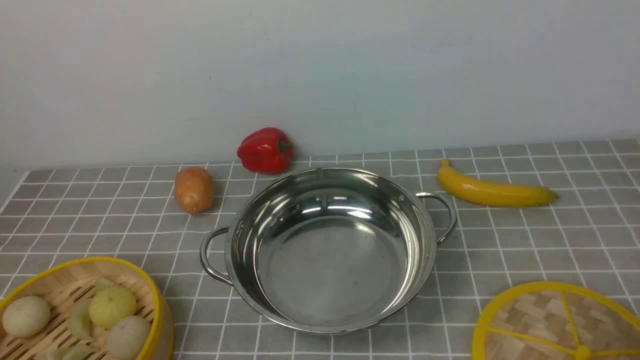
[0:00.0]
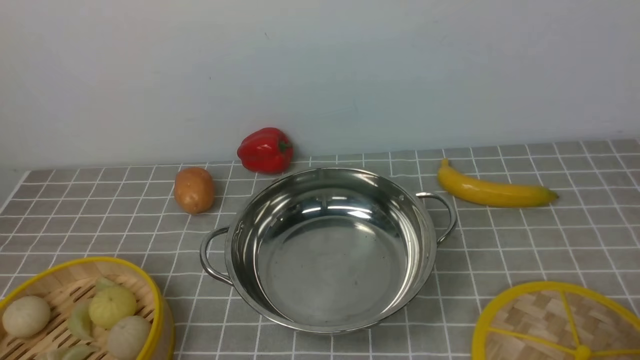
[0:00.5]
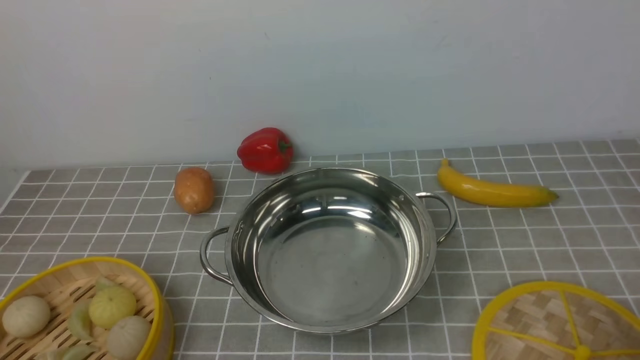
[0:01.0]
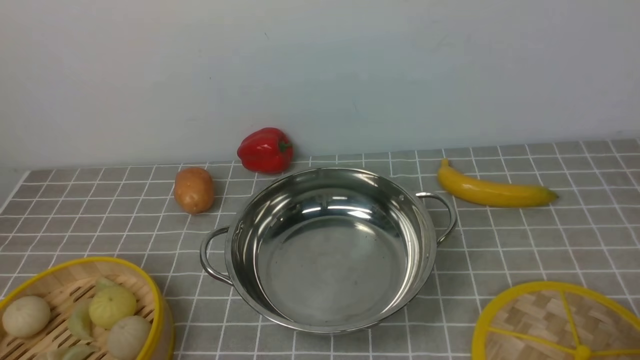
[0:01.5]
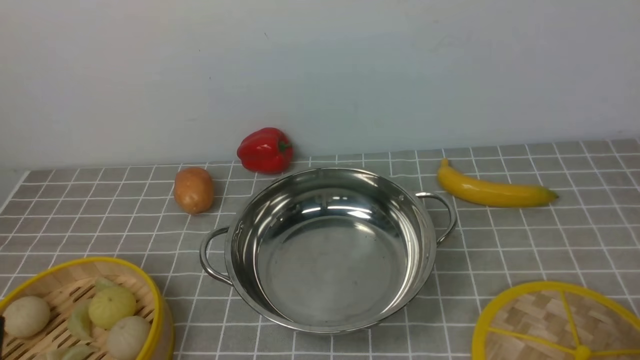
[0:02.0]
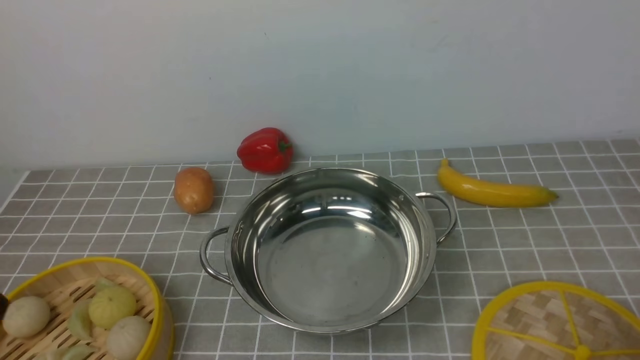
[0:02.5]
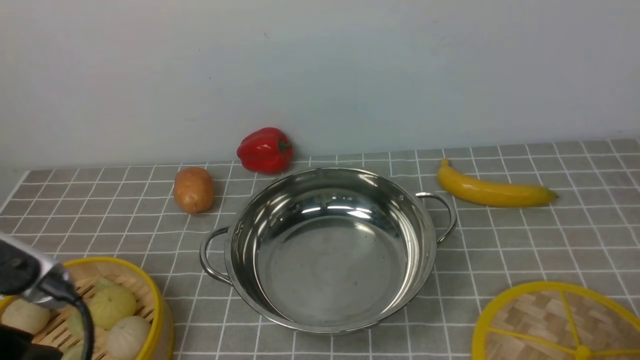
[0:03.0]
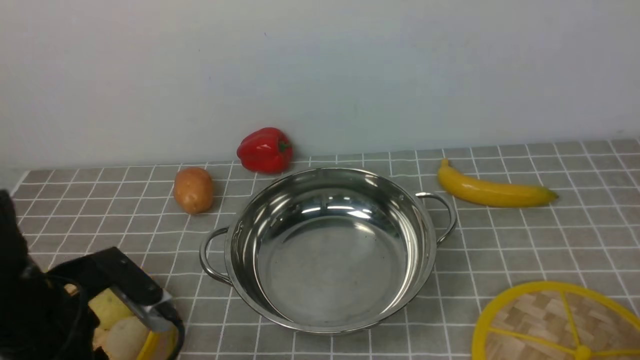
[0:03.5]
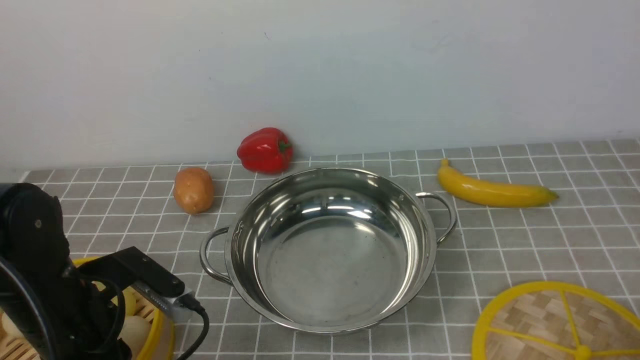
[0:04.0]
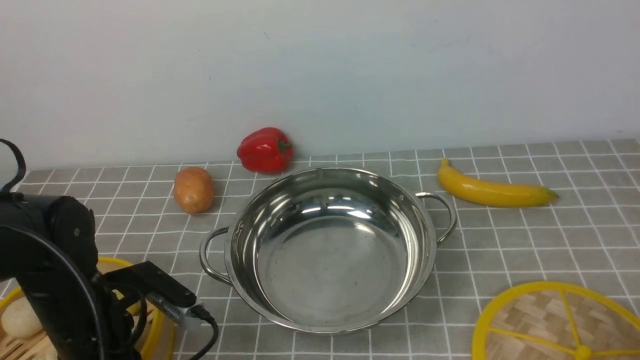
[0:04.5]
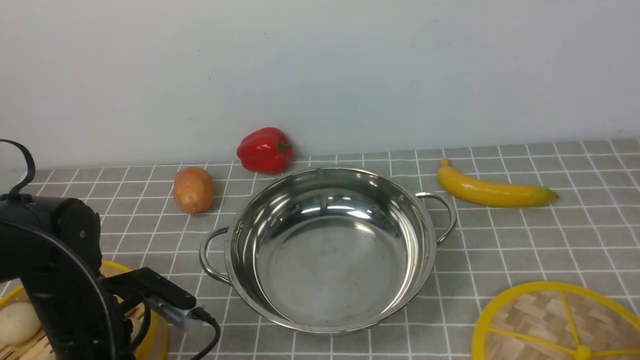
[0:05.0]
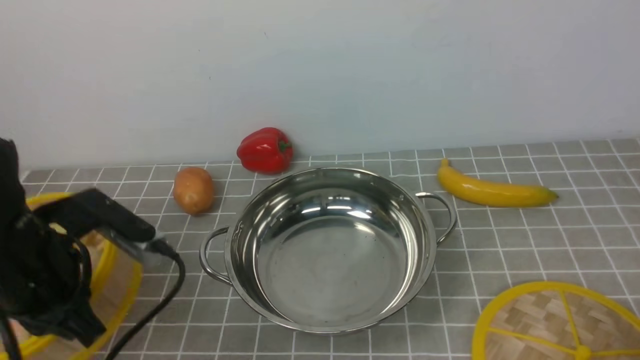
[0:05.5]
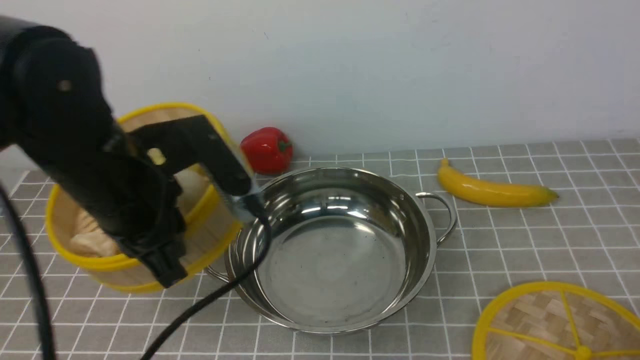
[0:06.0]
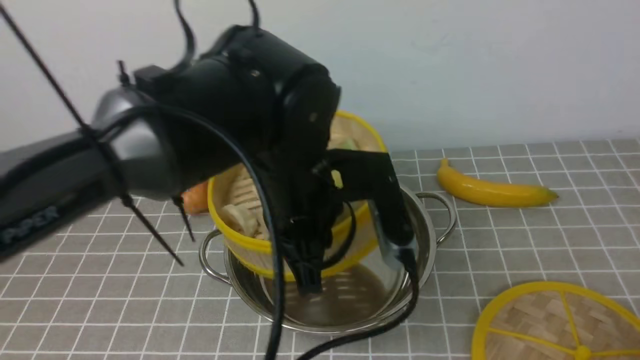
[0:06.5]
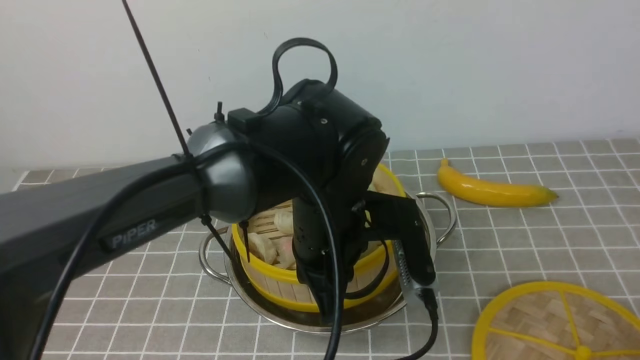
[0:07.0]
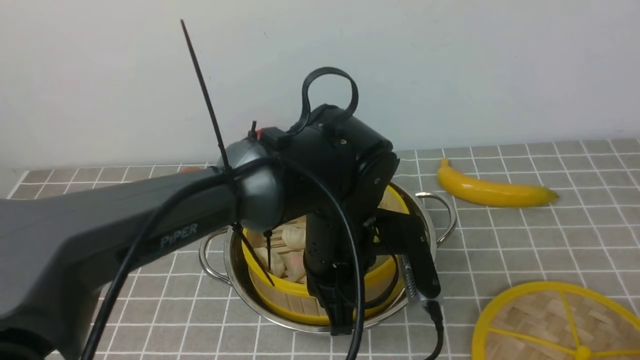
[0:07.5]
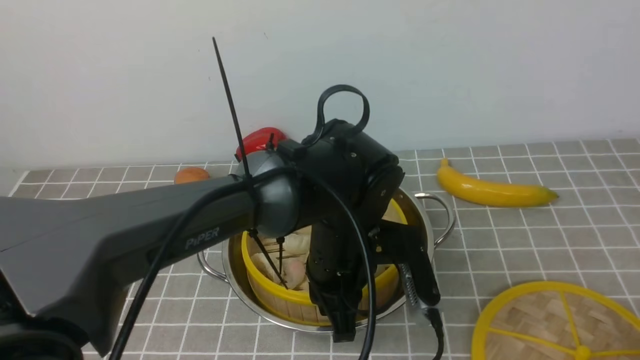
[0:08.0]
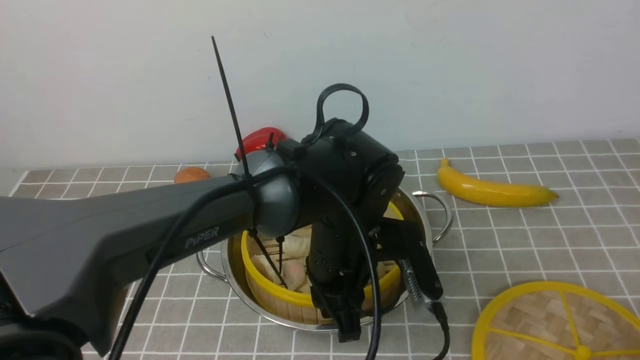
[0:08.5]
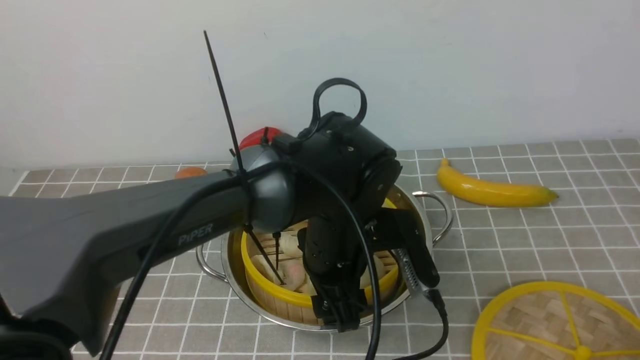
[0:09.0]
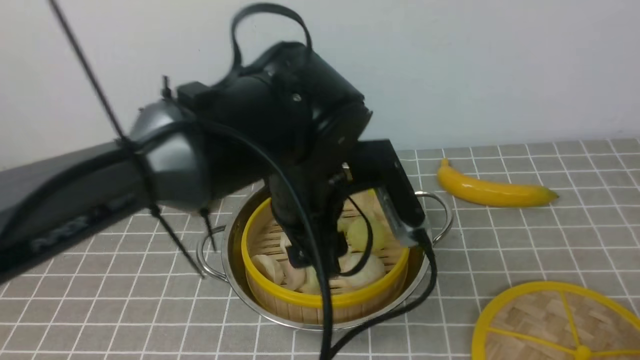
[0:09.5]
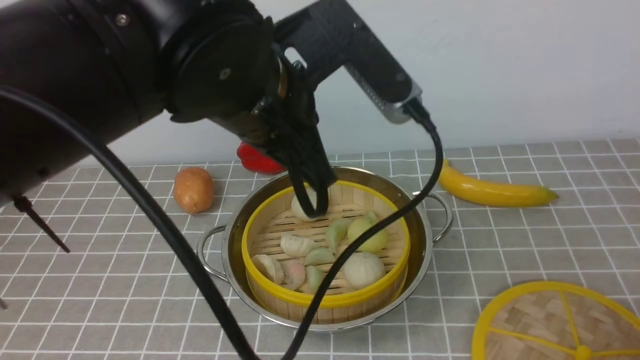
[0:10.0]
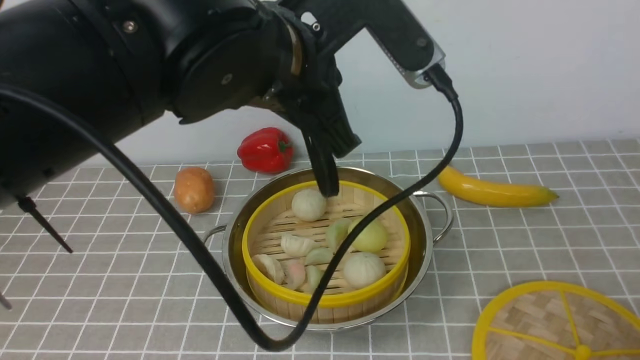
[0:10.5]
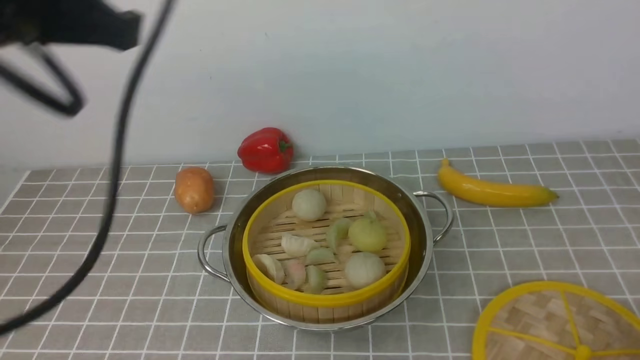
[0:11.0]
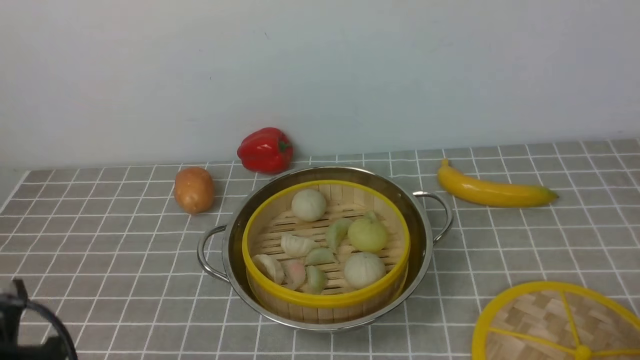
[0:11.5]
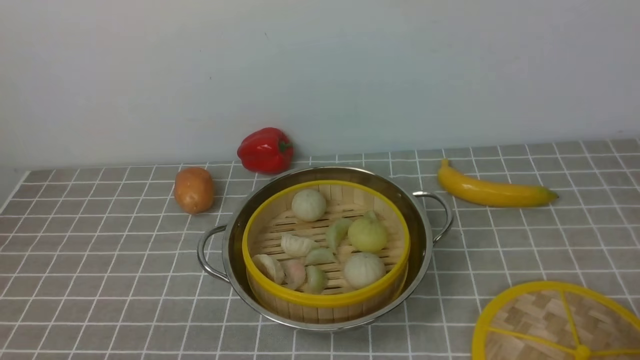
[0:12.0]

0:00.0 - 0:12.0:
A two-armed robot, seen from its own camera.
Task of the whole recording: place the steamer in the pot on the grey tablecloth, and put the lid on the steamer.
Step, 0:00.0 - 0:05.0: use the left arm to lift the steamer closest to it.
Step, 0:05.5 - 0:09.0: use the left arm to put the steamer into the iron steamer pot in the middle.
0:02.0 - 0:04.0: The left gripper goes about 15 cm forward.
0:04.0 - 0:06.0: The left gripper heads upward and to the right, covering some 15 cm, and closes.
0:06.0 - 0:08.0: The left gripper shifts roughly 20 cm to the right and downward.
0:08.0 - 0:10.0: The left gripper heads upward, covering roughly 15 cm, and opens, then closes again.
0:10.0 - 0:12.0: The left gripper moves backward, to the left and downward, some 35 cm.

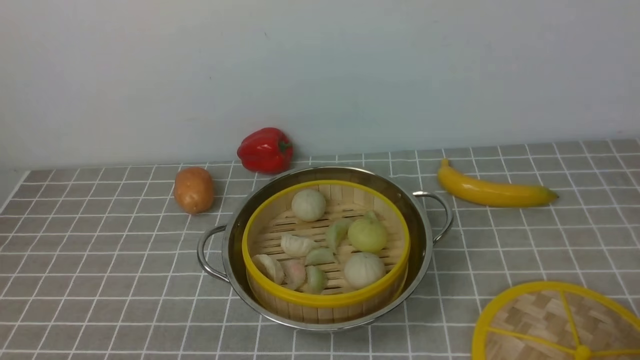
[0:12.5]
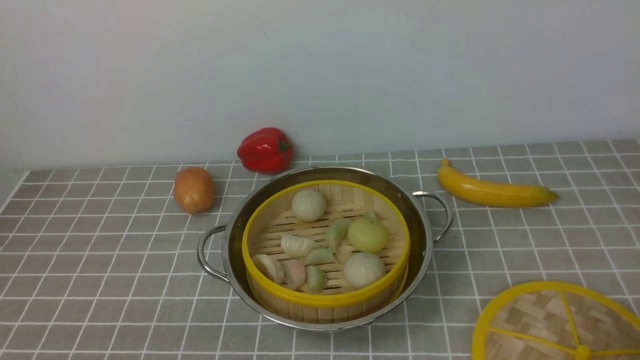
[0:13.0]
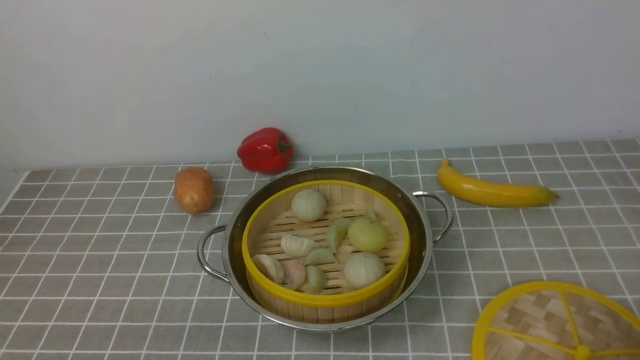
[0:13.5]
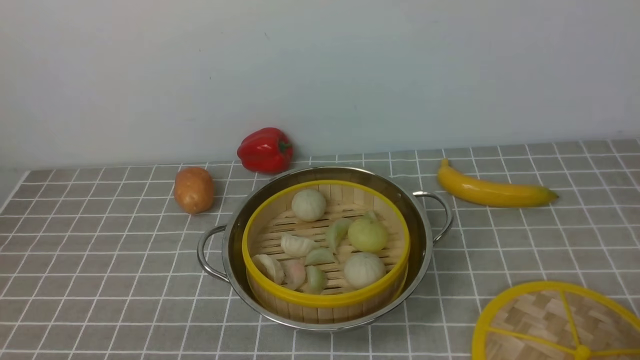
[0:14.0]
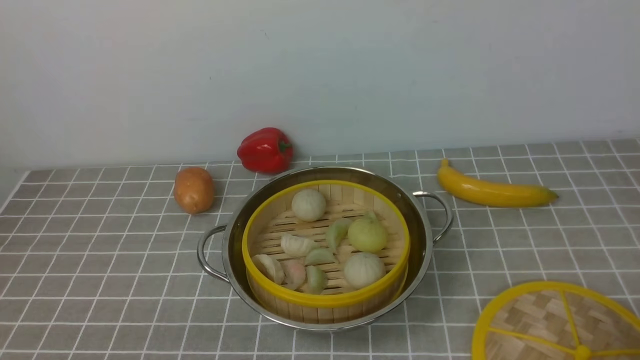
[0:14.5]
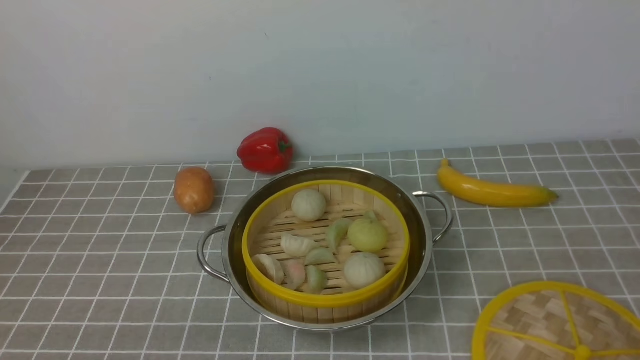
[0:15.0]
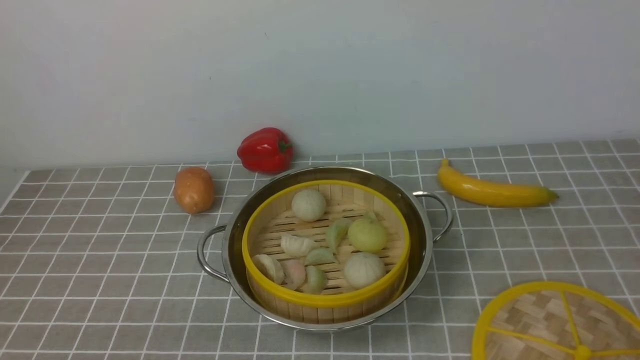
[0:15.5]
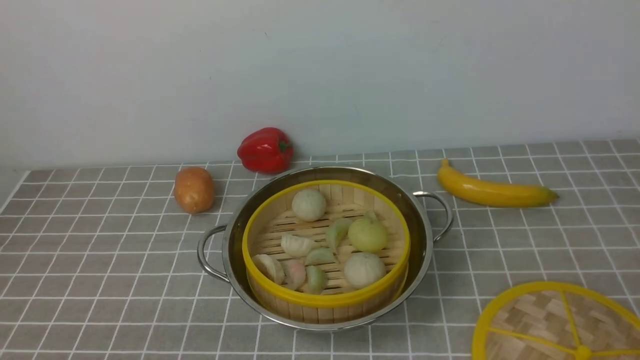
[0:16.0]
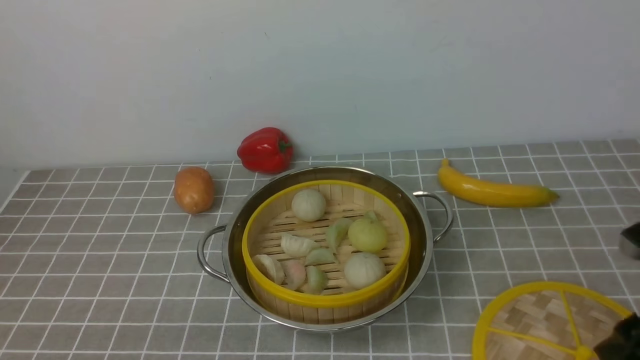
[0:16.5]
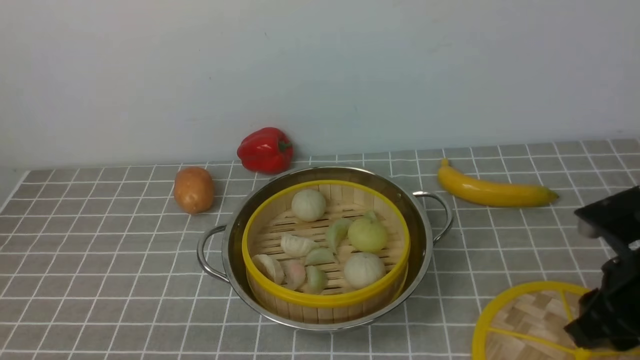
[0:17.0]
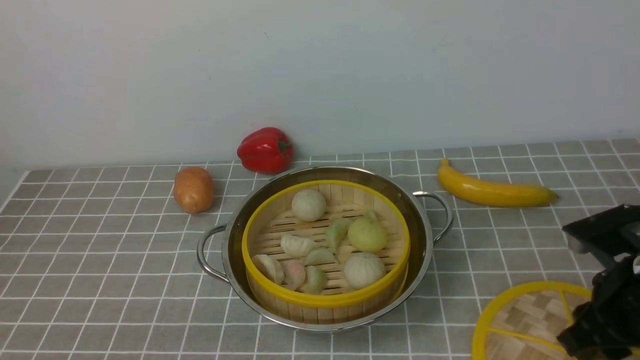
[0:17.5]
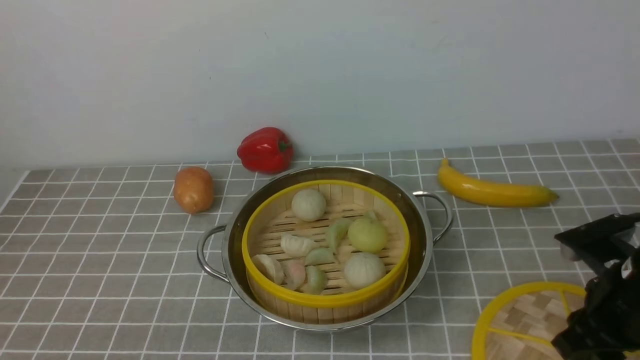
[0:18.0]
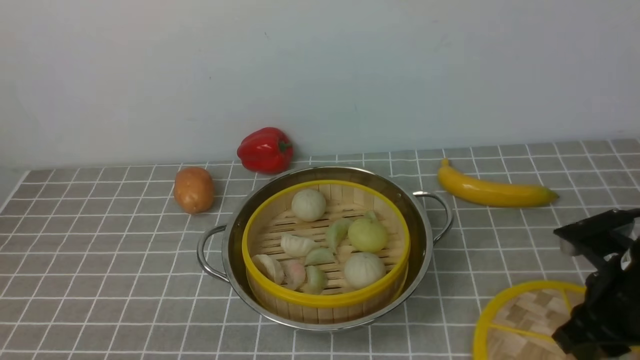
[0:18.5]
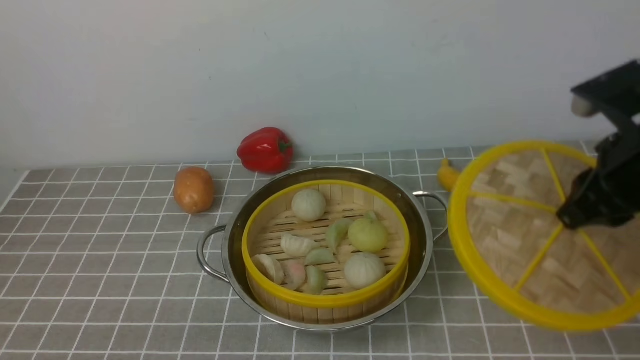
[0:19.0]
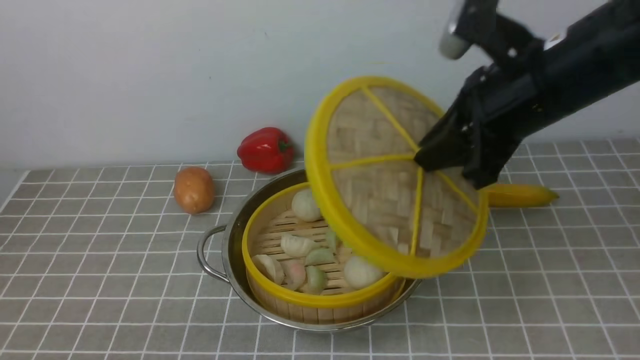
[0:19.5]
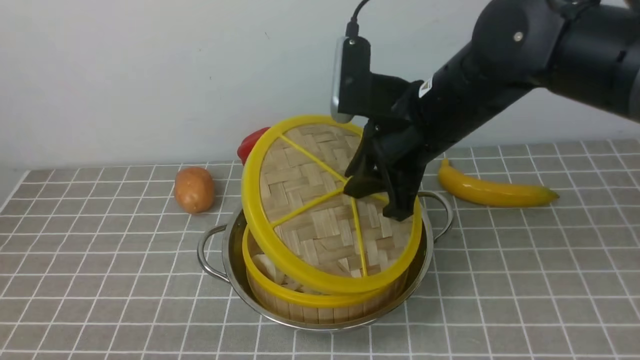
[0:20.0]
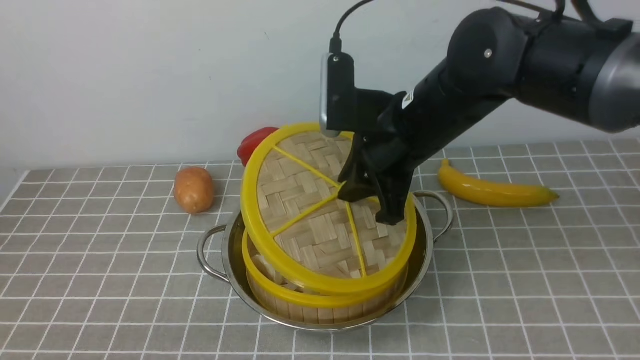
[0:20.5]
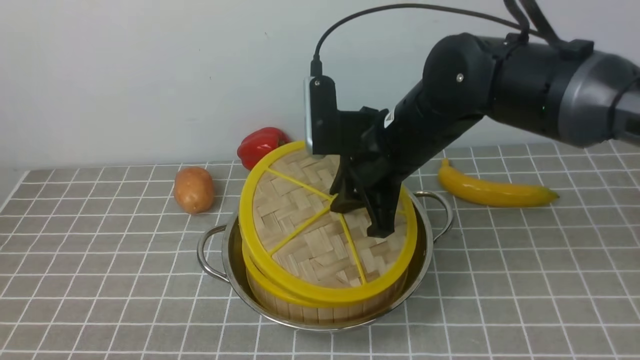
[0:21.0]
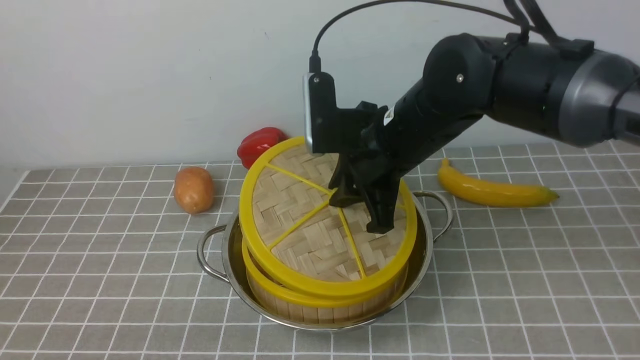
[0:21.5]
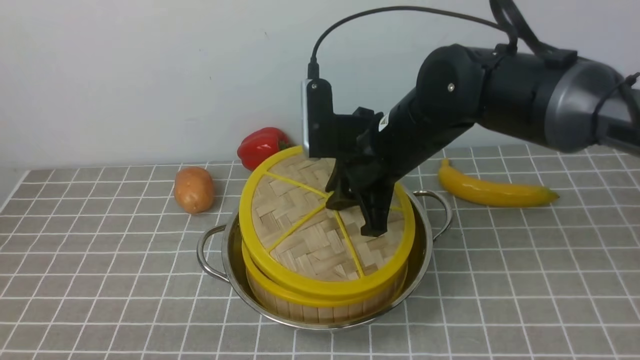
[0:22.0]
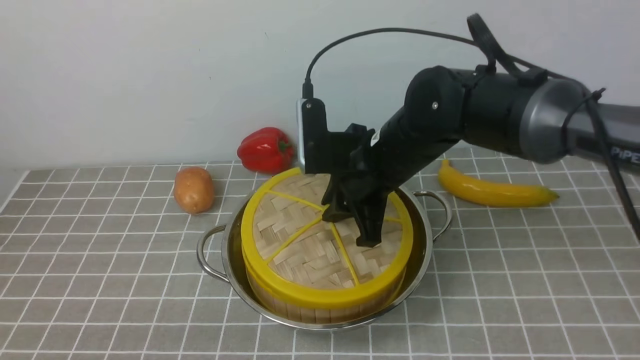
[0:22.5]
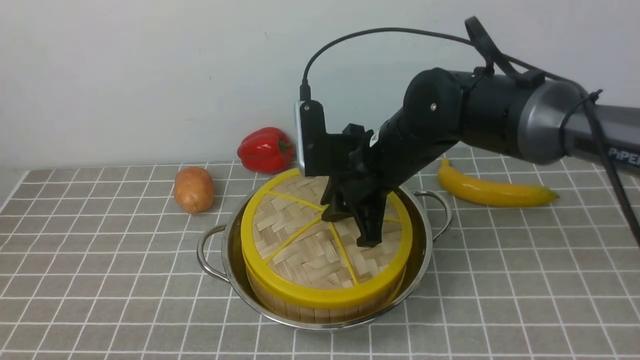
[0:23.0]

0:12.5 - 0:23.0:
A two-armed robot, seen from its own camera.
Task of the whole recording: place the steamer in the pot on the grey tablecloth, and put the lid on the steamer.
Step, 0:12.5 - 0:18.5: use the right arm to lift the lid of the steamer.
0:12.5 - 0:14.5: Both grippers stay put.
0:14.5 - 0:16.5: The right gripper heads forward and to the left, covering some 15 cm.
0:16.5 - 0:19.0: The right gripper shifts approximately 10 cm forward and upward, and closes up.
0:19.0 - 0:21.0: The right gripper is displaced to the left by about 20 cm.
0:21.0 - 0:23.0: The grippers move only a little.
